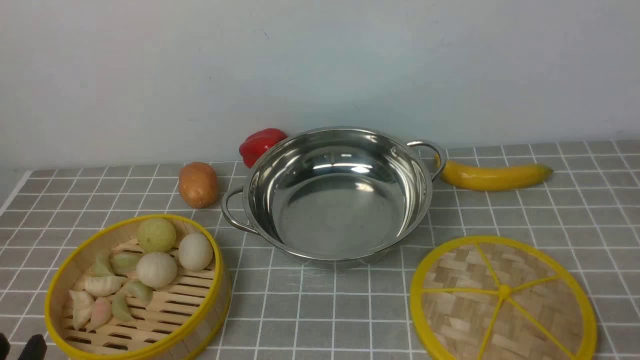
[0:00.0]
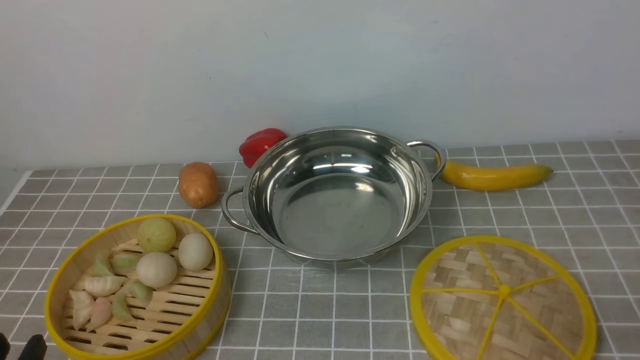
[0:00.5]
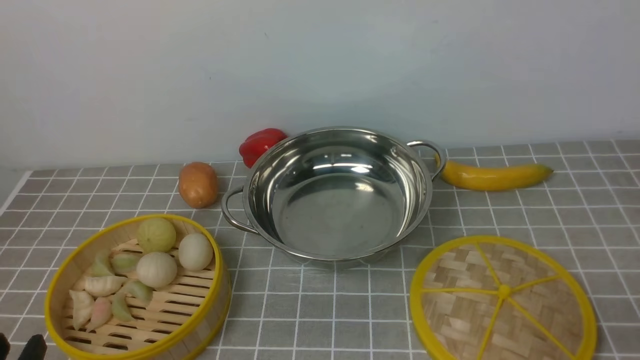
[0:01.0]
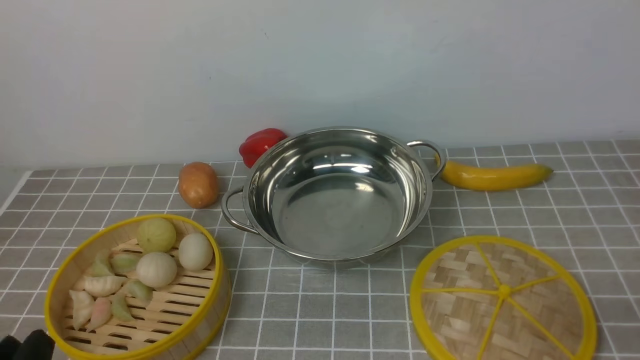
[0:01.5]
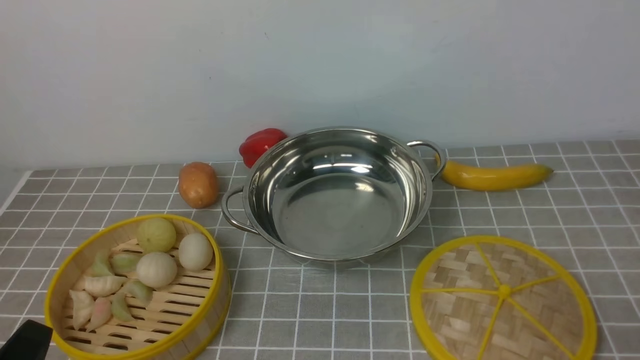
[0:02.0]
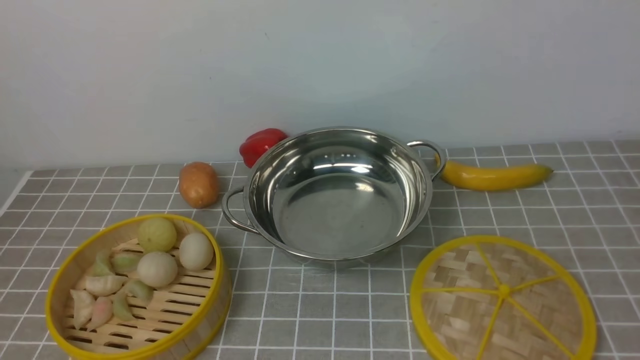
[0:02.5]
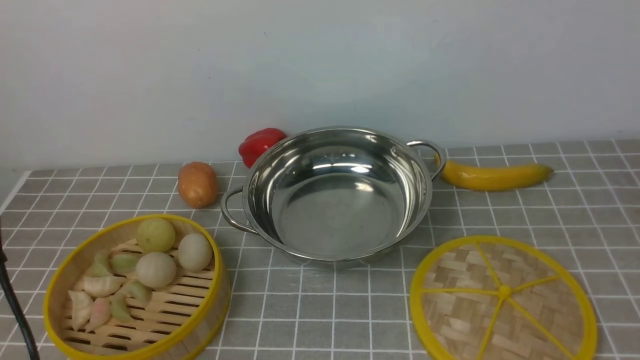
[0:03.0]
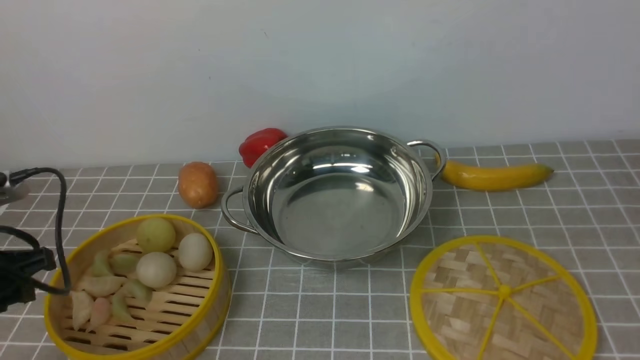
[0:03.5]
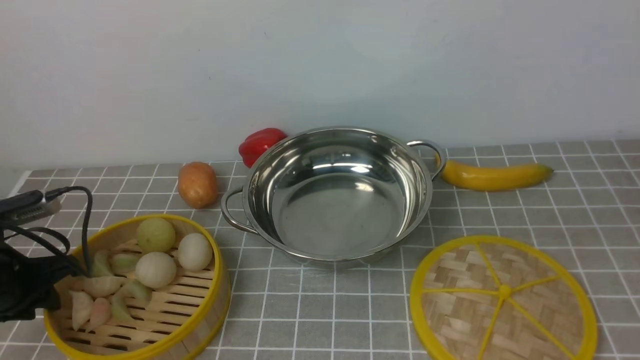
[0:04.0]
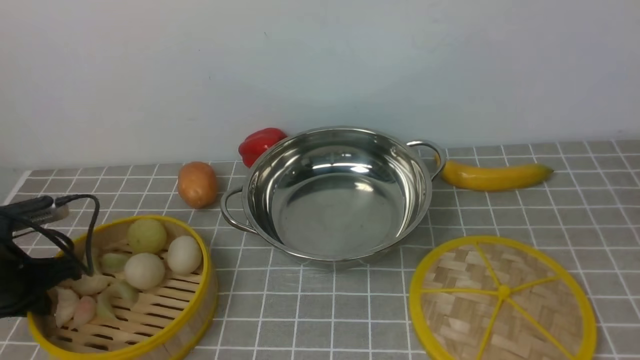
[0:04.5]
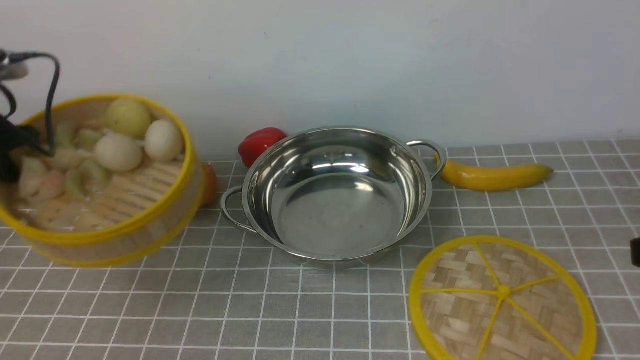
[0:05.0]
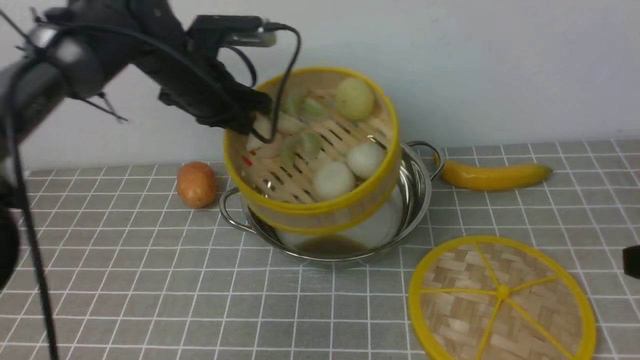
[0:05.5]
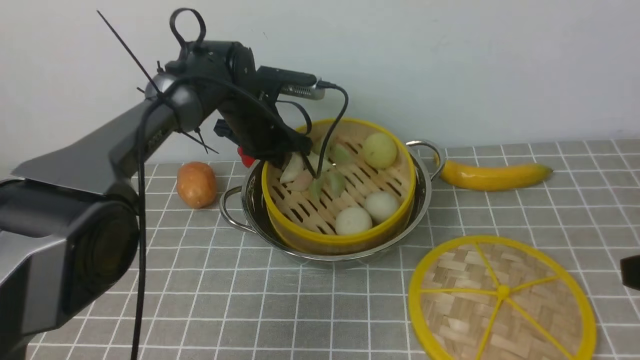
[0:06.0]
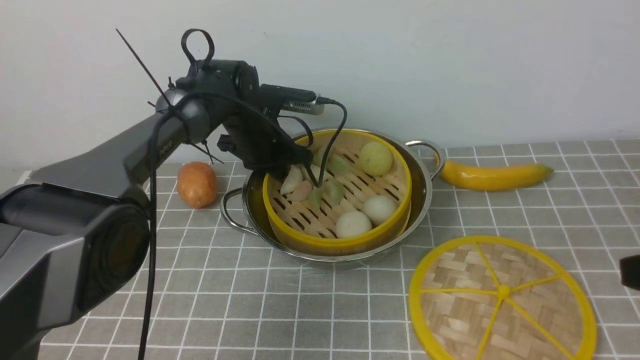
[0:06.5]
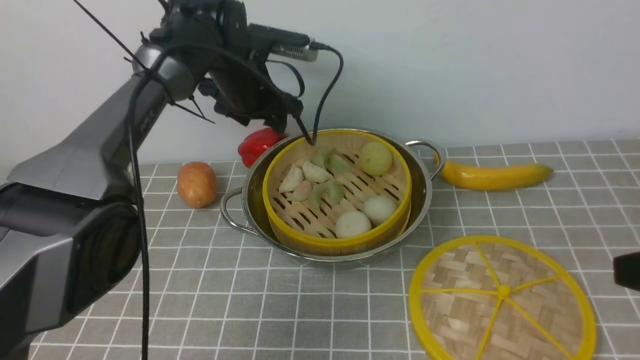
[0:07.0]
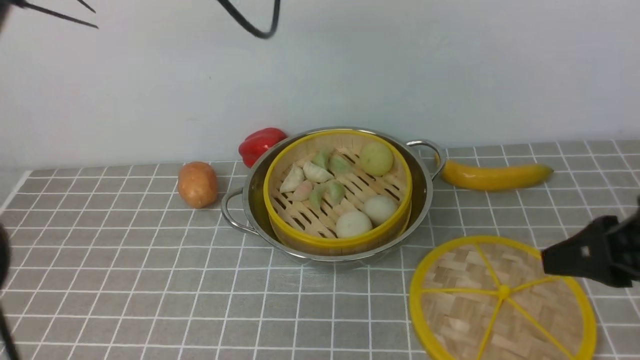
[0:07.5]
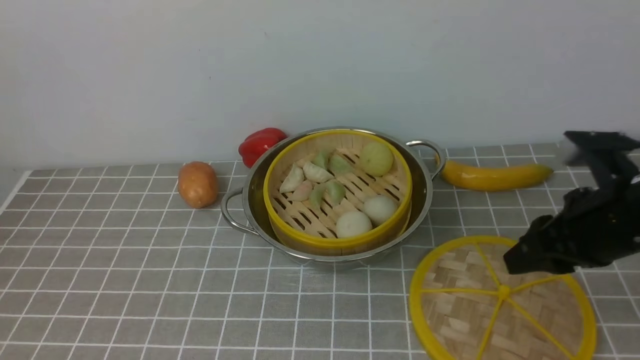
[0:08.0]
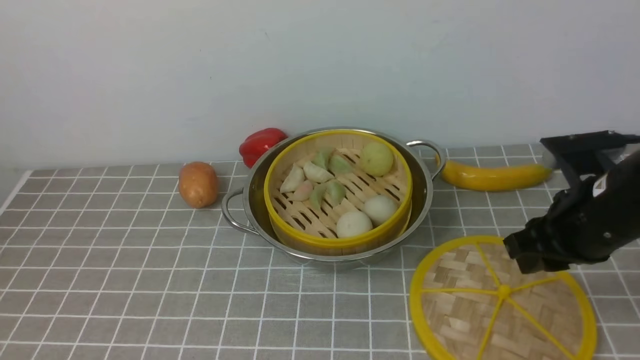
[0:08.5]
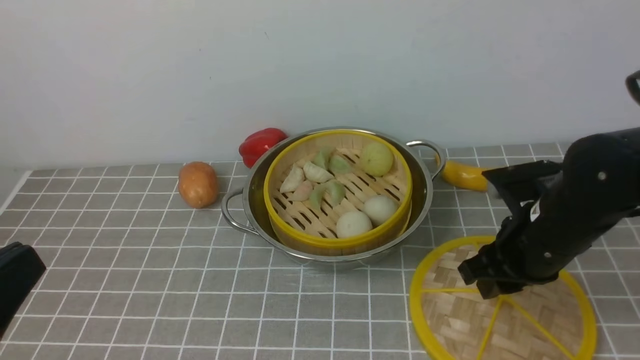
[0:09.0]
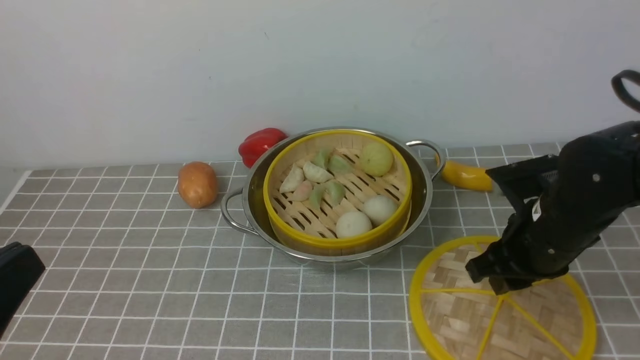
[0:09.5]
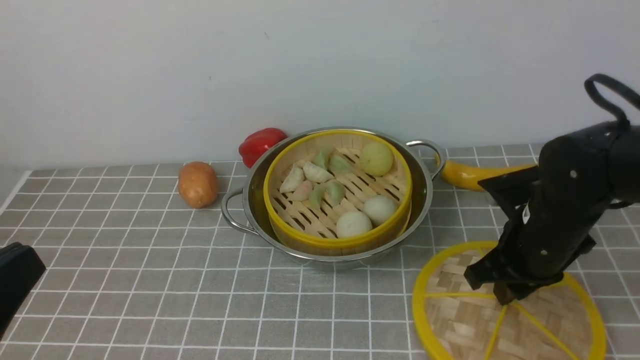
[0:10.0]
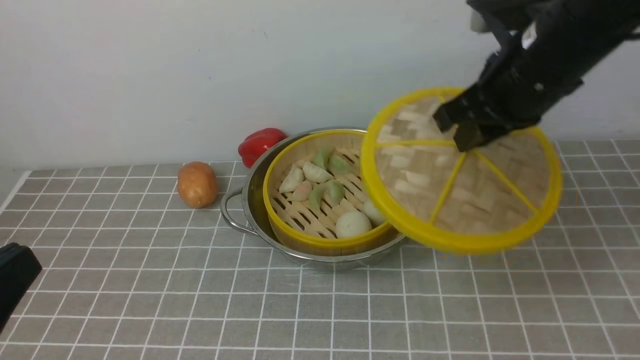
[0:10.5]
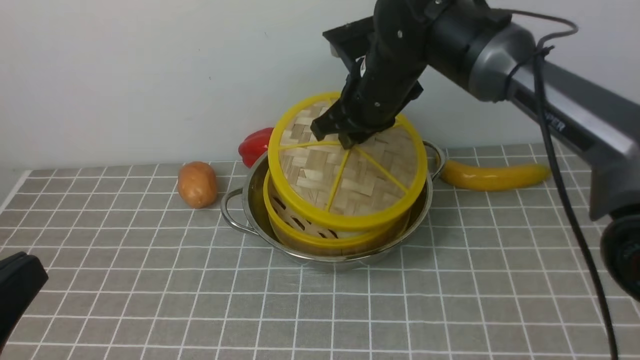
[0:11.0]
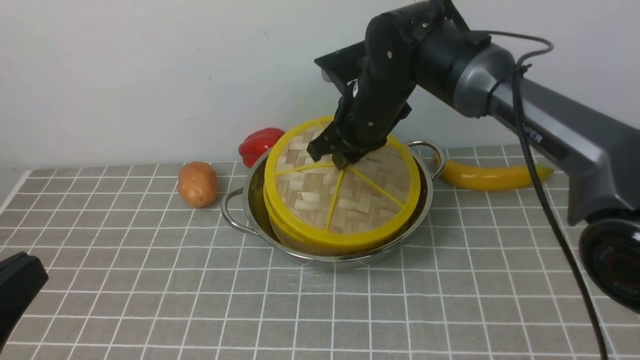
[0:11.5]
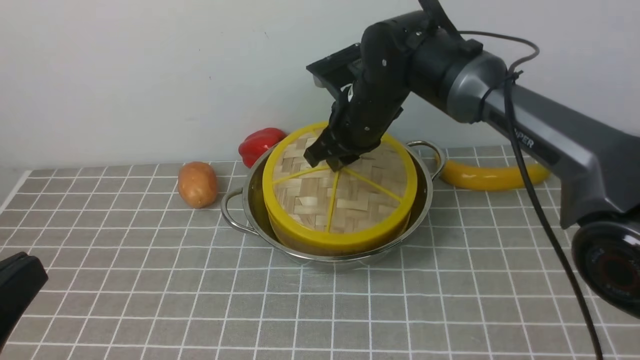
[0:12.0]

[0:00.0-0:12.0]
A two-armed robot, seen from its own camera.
Task of the whole recording: place the steamer in the pot on the grey tablecloth, and put the lid on the steamer.
Step, 0:00.0 to 0:04.5: use the left arm to lift the steamer closest to it.
Step, 0:05.0 to 0:06.5: use the left arm to put the steamer into the iron steamer pot in the middle.
Step, 0:07.0 to 0:10.0: use the right arm to lift the lid of the steamer.
0:02.0 to 0:04.0: The left gripper is displaced forward and to the left by some 25 cm.
0:04.0 to 0:06.0: The left gripper moves to the right and forward, about 35 cm, and closes up.
0:06.0 to 0:08.0: The left gripper heads upward and backward, covering about 50 cm, and opens, then closes again, while the right gripper heads forward and downward, covering approximately 15 cm.
0:08.0 to 0:10.0: The right gripper shifts by about 5 cm, while the left gripper goes roughly 30 cm downward and backward.
0:10.0 to 0:12.0: The right gripper is displaced to the left and forward by about 20 cm.

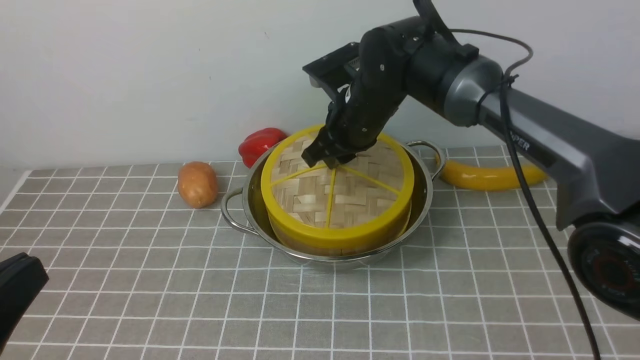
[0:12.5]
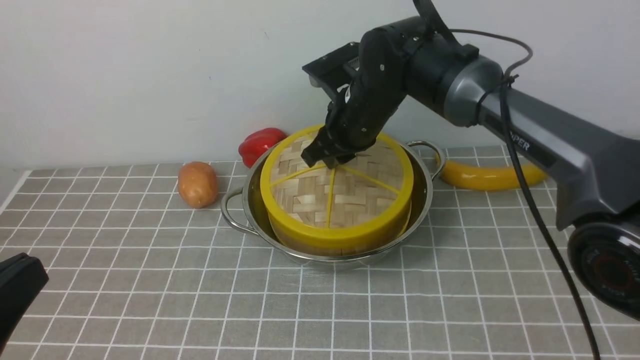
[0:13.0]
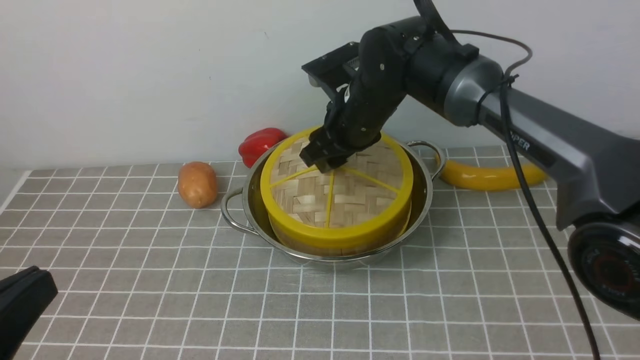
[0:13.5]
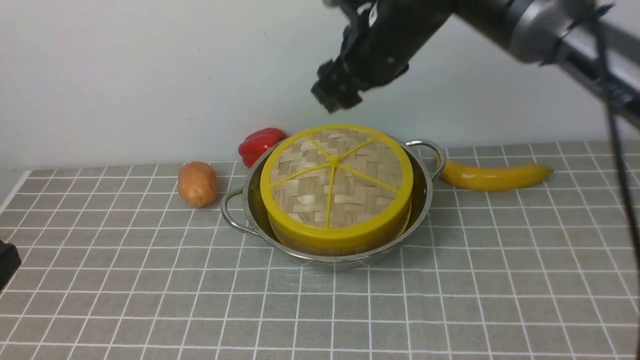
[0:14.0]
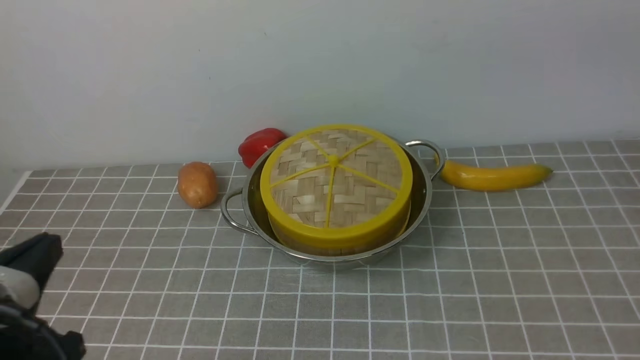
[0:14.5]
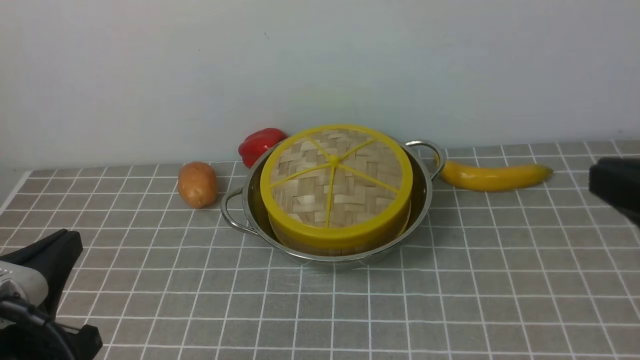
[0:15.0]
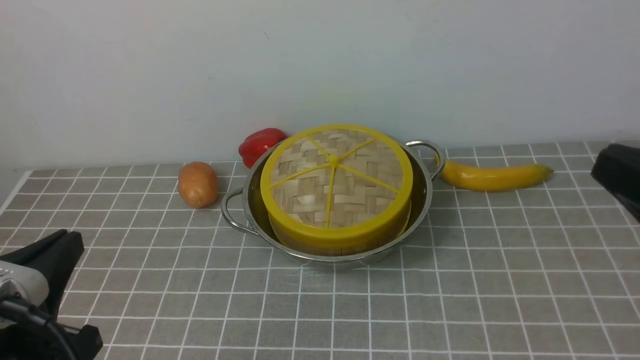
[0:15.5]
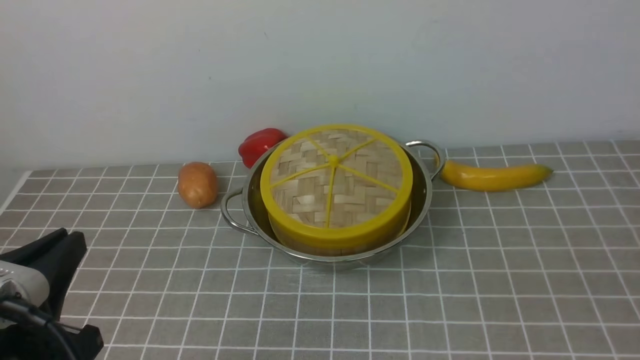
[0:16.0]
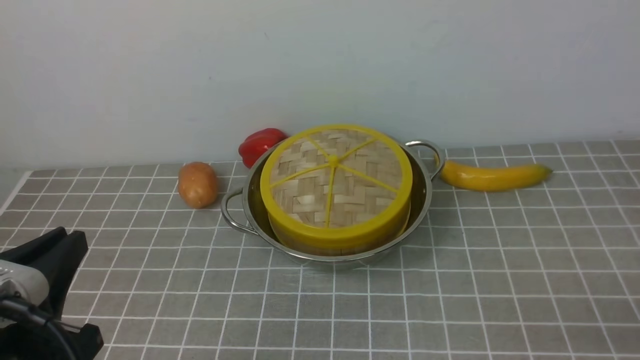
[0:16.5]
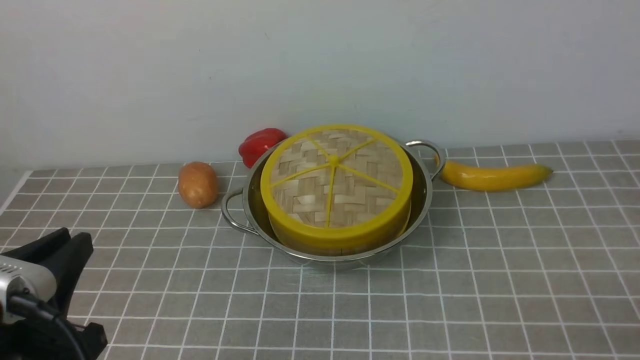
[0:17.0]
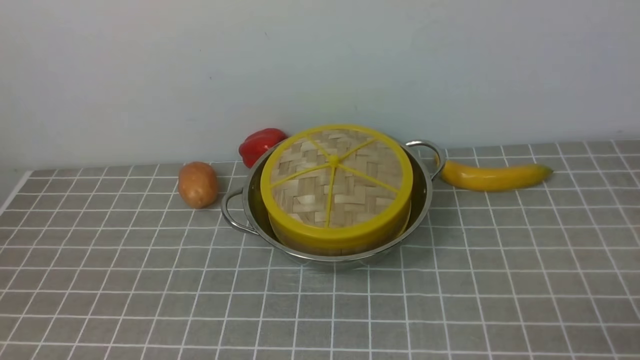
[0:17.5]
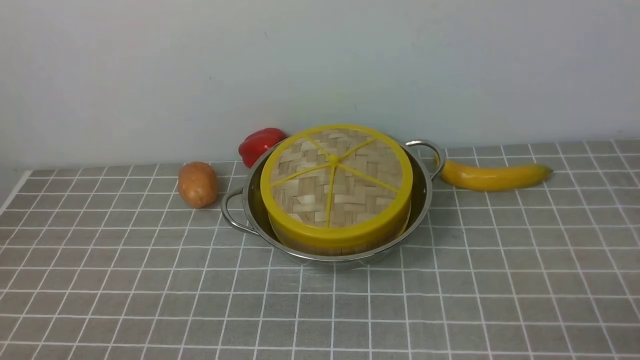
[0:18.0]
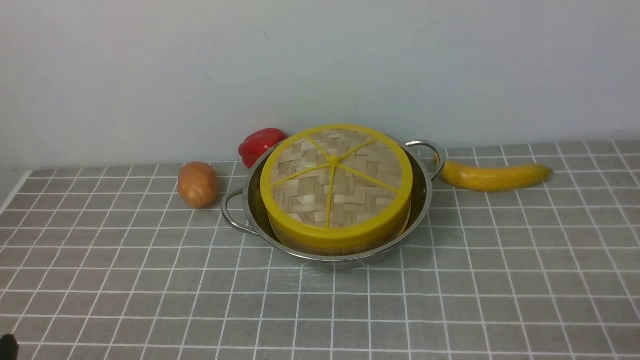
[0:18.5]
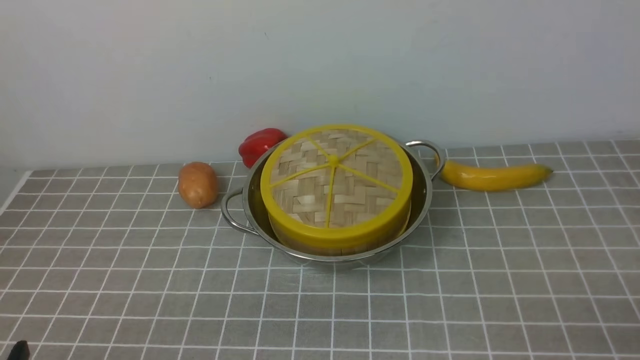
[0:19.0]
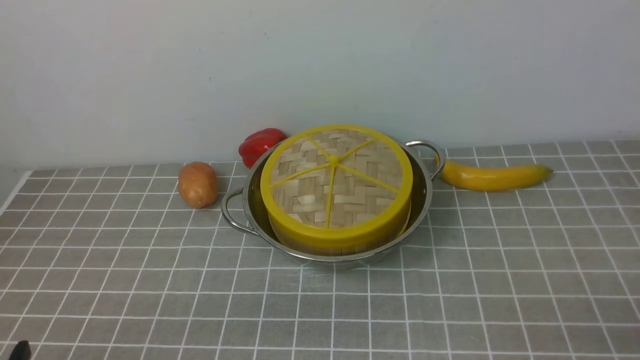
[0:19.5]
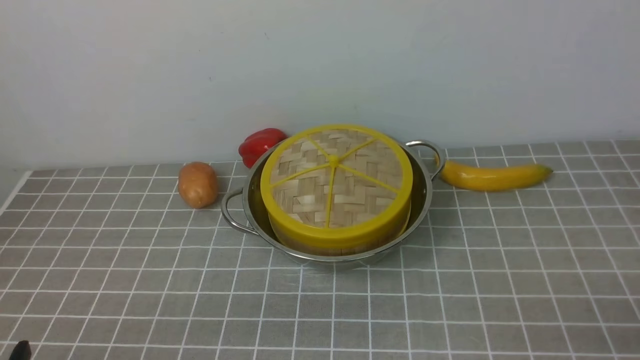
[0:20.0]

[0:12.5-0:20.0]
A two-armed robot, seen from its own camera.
Task of the whole recording: place the steamer in the pot on the grey tablecloth, and put the lid on the steamer.
0:12.5 to 0:14.5: The left gripper shifts by approximately 5 cm, while the right gripper is displaced upward, backward and to the right by about 40 cm, and opens.
0:16.5 to 0:18.0: The left gripper is displaced downward and backward by about 10 cm.
